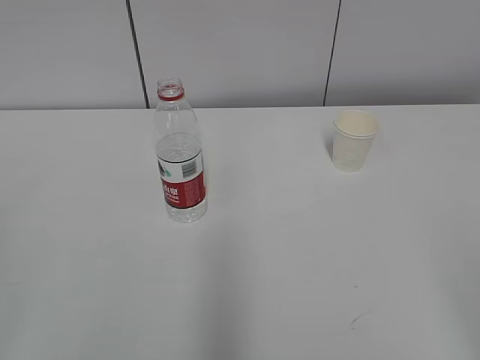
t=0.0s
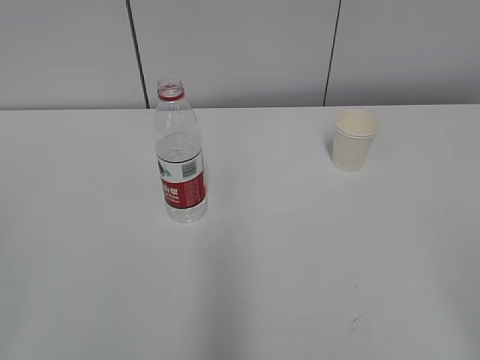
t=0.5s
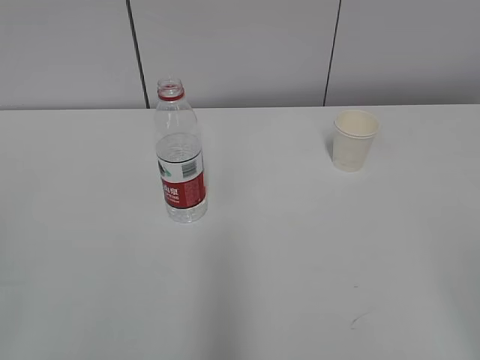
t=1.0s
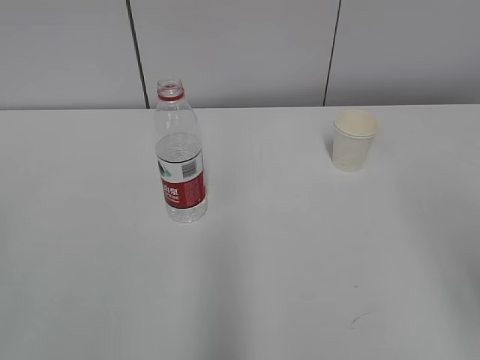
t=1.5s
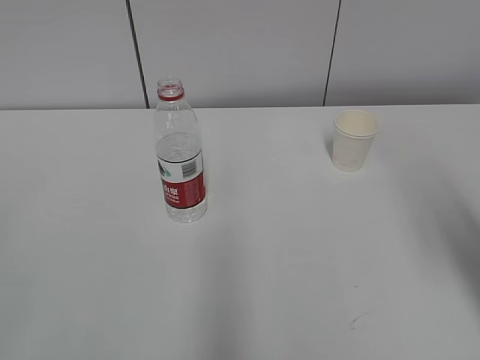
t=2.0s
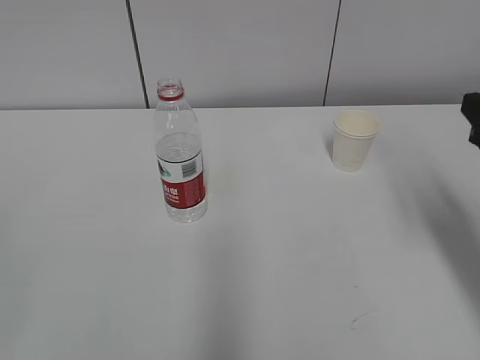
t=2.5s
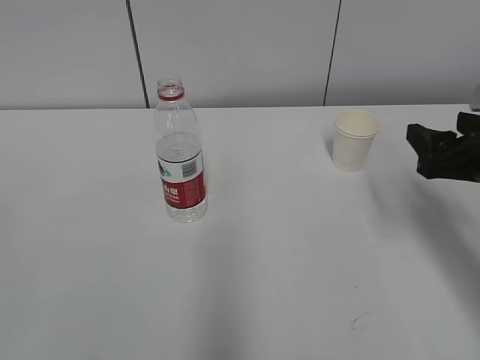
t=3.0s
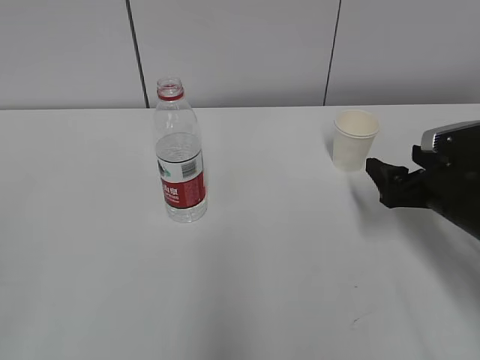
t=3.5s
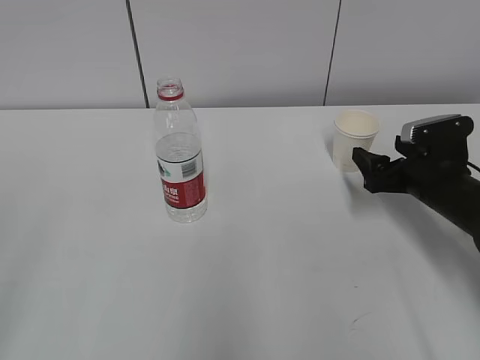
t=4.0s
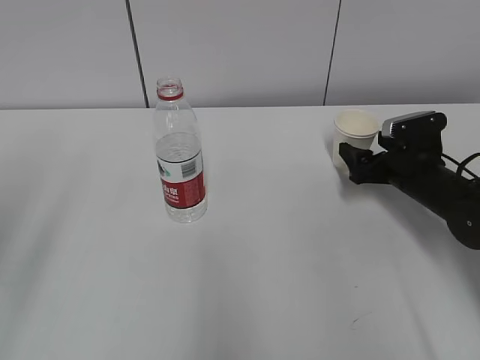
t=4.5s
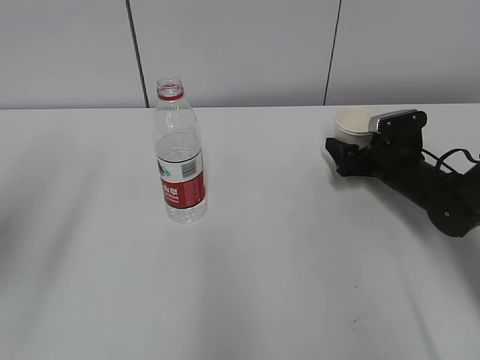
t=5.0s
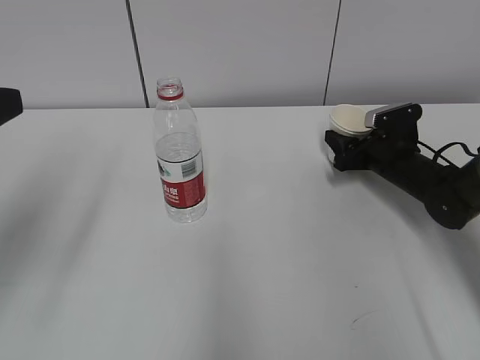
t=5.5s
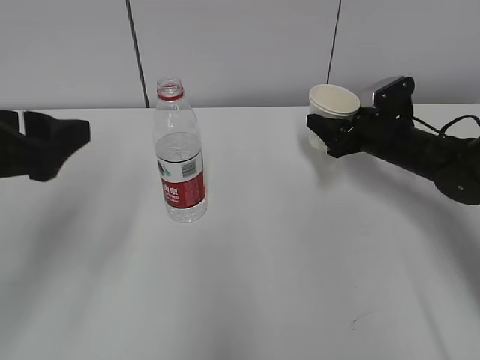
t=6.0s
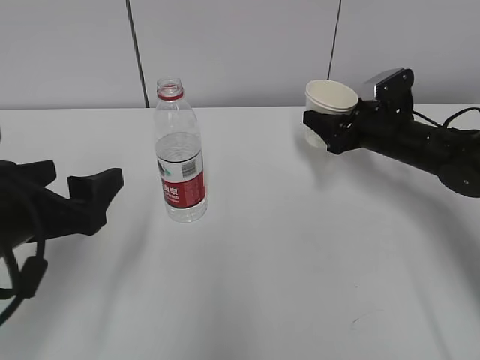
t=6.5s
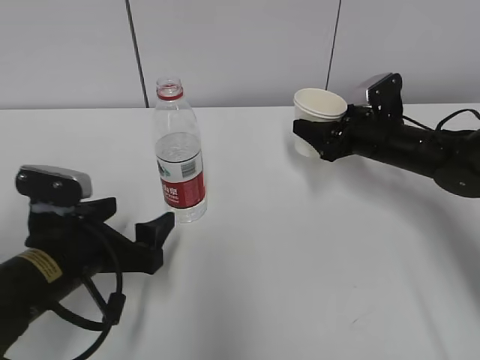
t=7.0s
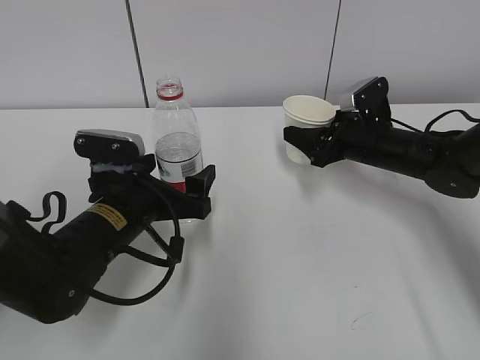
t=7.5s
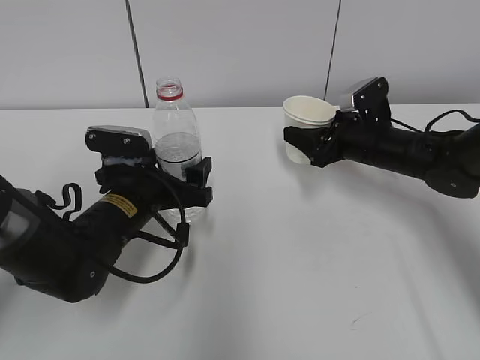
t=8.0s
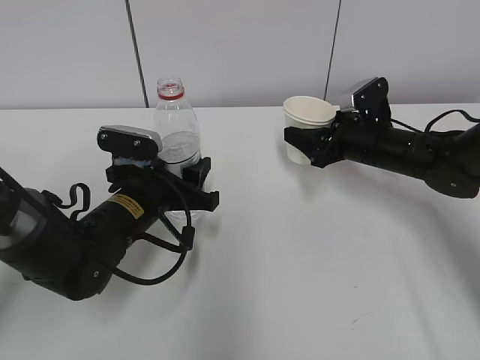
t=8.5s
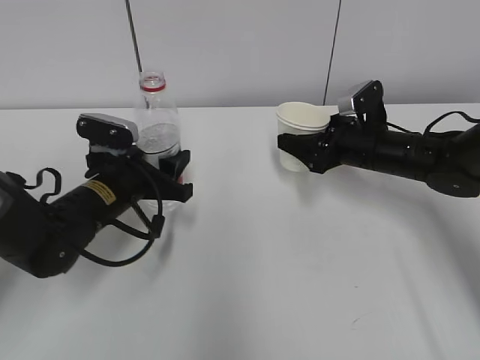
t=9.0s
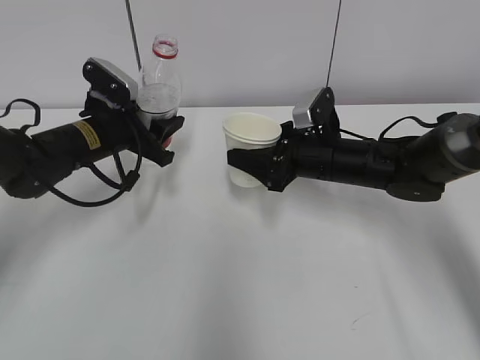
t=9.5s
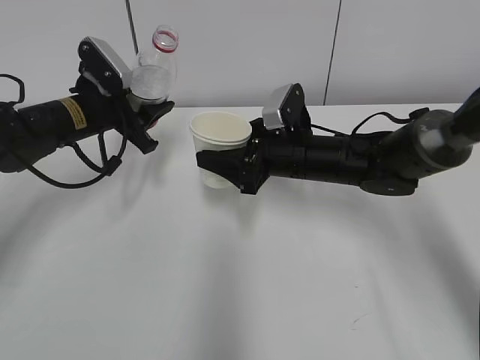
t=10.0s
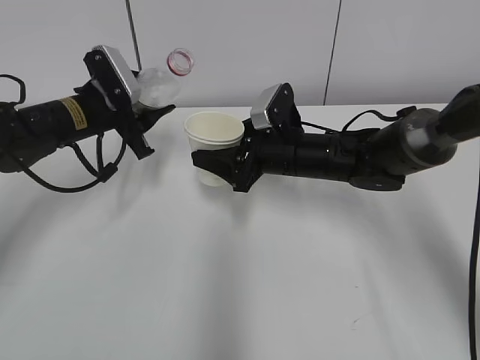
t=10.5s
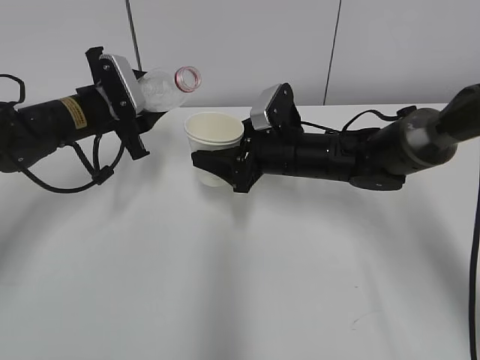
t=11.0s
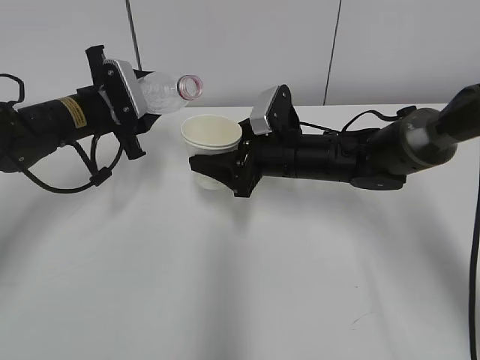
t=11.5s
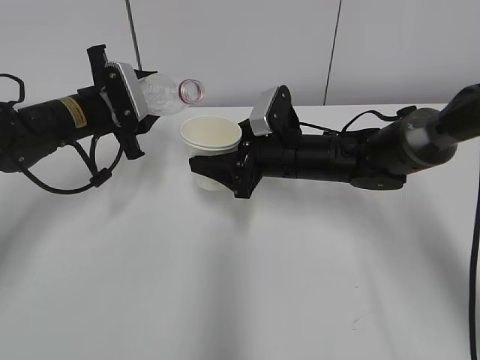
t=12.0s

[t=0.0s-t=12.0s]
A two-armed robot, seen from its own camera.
Step, t=0.0s to t=4.0s: Grab the paper cup with the right hand.
Step, t=4.5s to t=7.0s: Grab the water bottle with the left hand.
t=2.0s to t=4.0s: The right gripper heads downward and forward, covering about 30 cm, and opens.
t=4.0s to t=6.0s: The left gripper moves forward and to the right, about 20 cm; the right gripper travels forward by about 10 cm, and closes up.
t=6.0s to t=8.0s: The left gripper travels downward, forward and to the right by some 25 cm.
t=8.0s to t=10.0s: The left gripper moves forward, to the left and upward, about 15 cm, and closes. Meanwhile the right gripper moves to the left, approximately 10 cm.

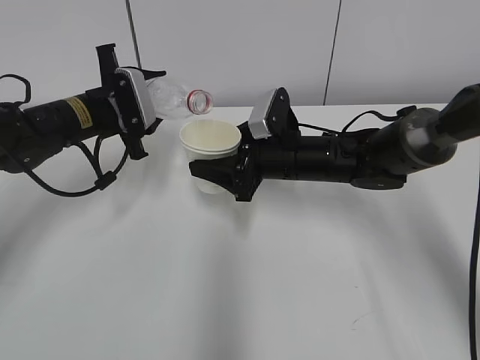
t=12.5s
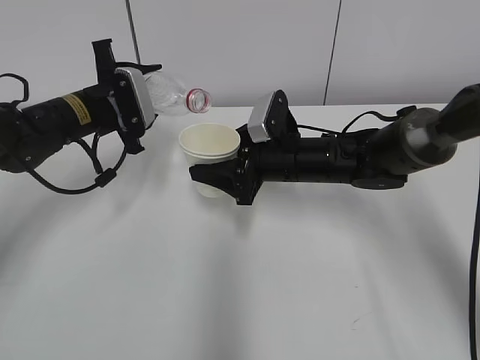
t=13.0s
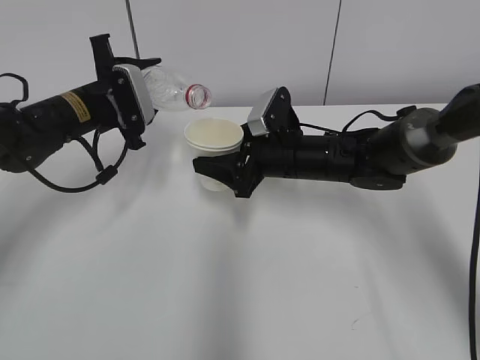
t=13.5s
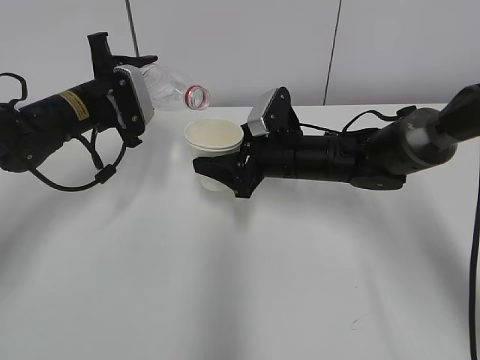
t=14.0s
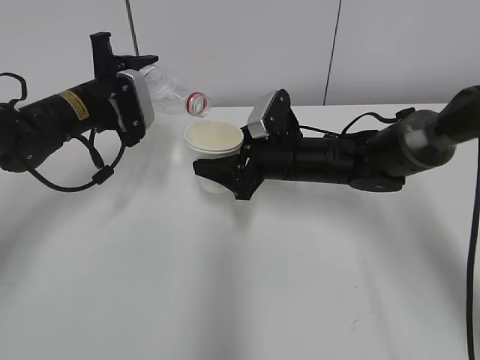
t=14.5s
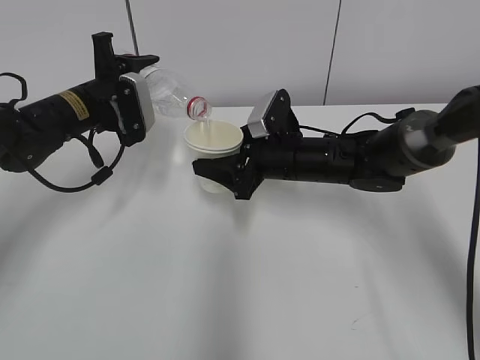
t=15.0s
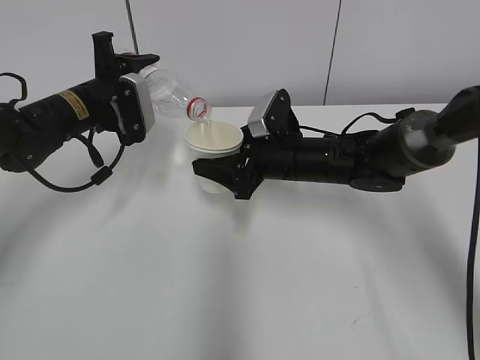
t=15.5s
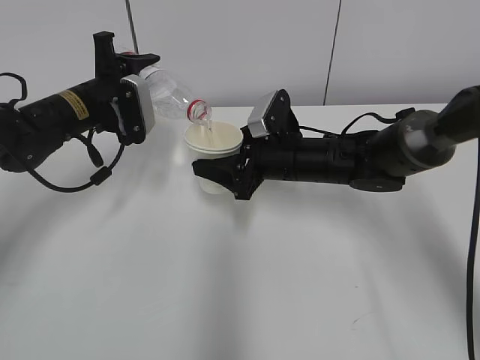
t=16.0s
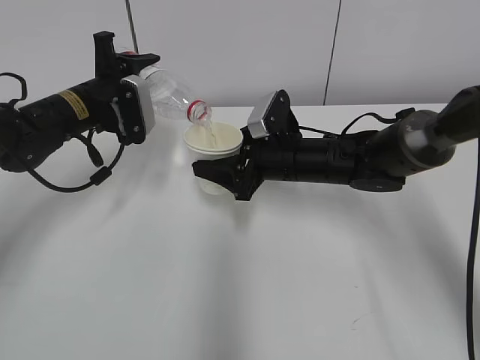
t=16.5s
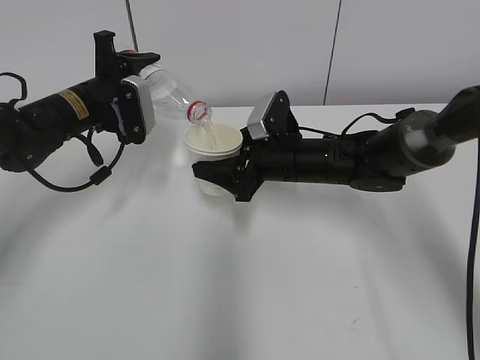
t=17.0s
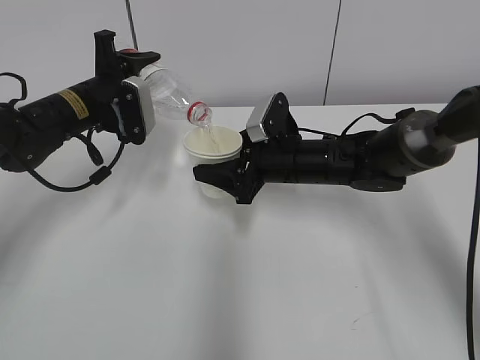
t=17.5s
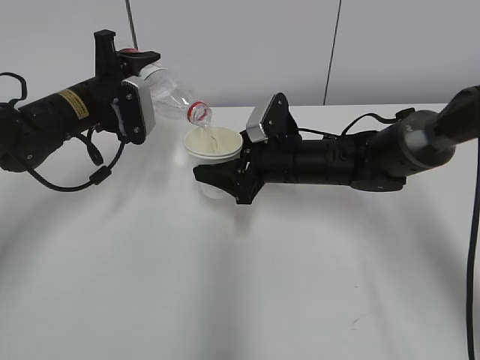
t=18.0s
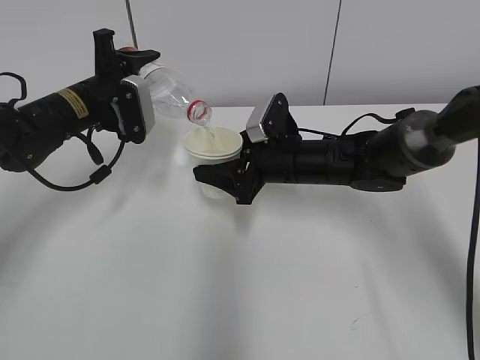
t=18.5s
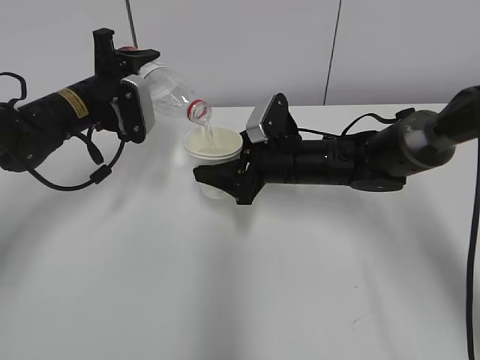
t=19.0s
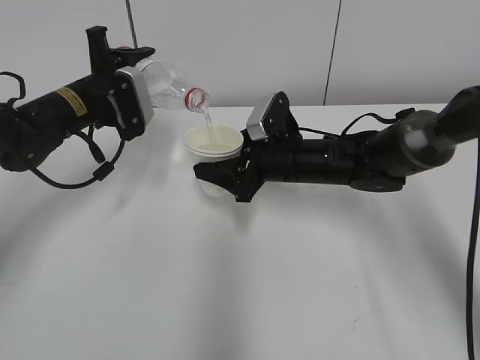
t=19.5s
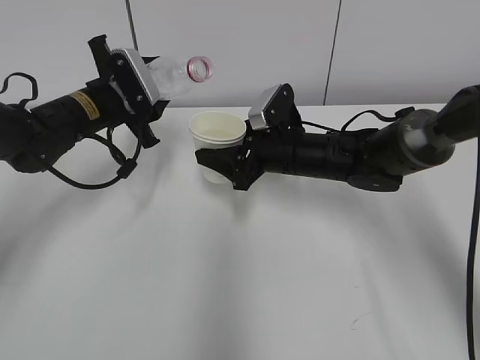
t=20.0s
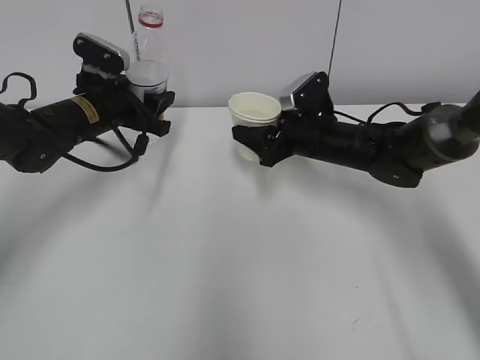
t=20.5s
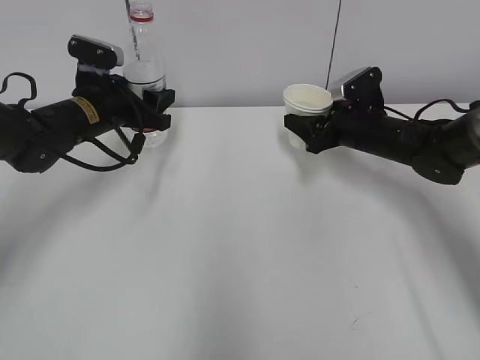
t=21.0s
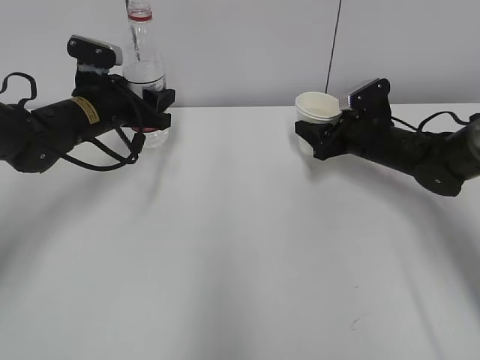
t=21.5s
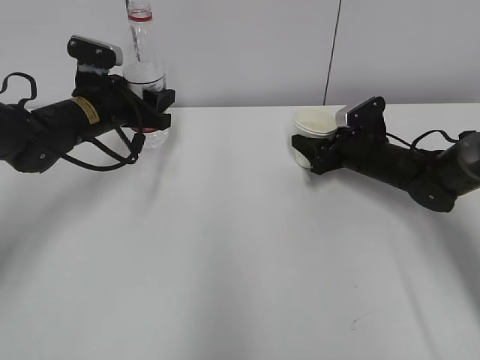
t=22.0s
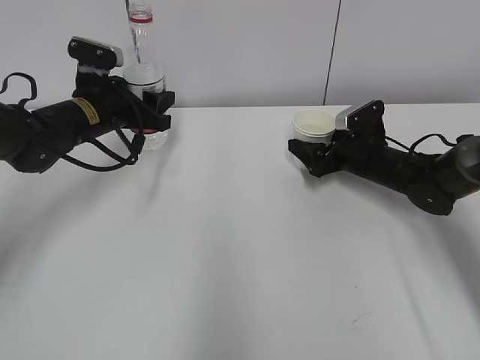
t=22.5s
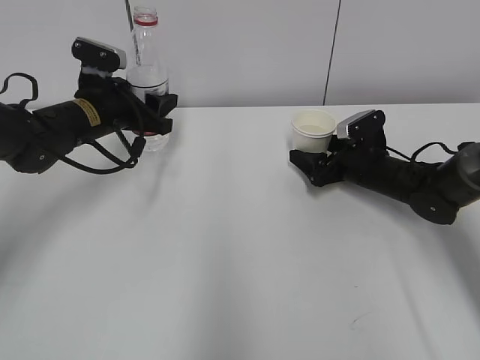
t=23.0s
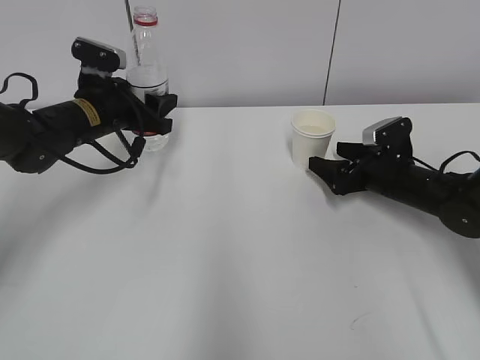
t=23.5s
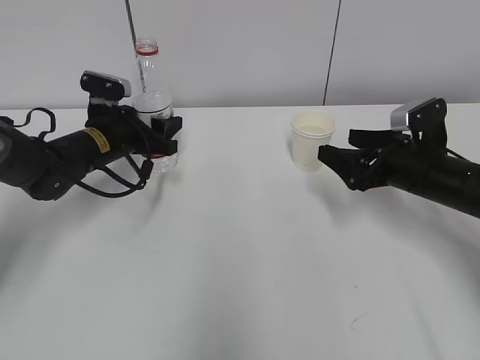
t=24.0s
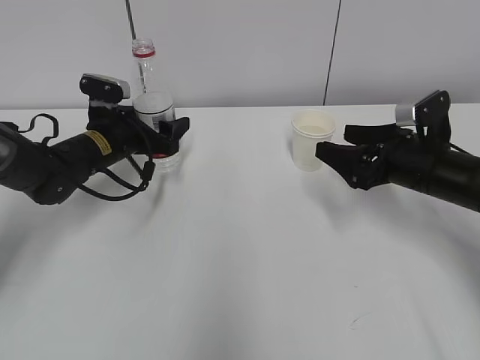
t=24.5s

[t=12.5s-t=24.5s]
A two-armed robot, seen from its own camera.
Step, t=12.5s to t=16.0s: Fill water with the right hand.
Step, t=12.5s to t=16.0s: Pour water with the left hand.
Step, t=16.5s to t=17.5s: Collect water with the left hand.
Step, t=18.5s to t=20.0s: Place the water bottle with the left hand.
t=12.5s to t=16.5s: The grippers make only small movements.
t=16.5s to t=18.5s: Neither gripper changes place.
t=18.5s to t=20.5s: The right gripper moves some 5 cm.
t=20.5s to t=22.5s: The right gripper moves to the right and downward, some 10 cm, and opens.
t=22.5s to t=24.5s: The right gripper goes some 15 cm backward and upward; the left gripper heads downward, covering roughly 5 cm, and opens its fingers.

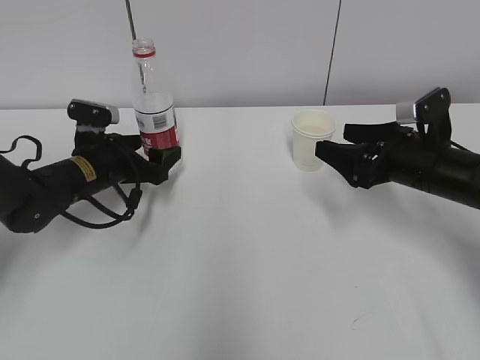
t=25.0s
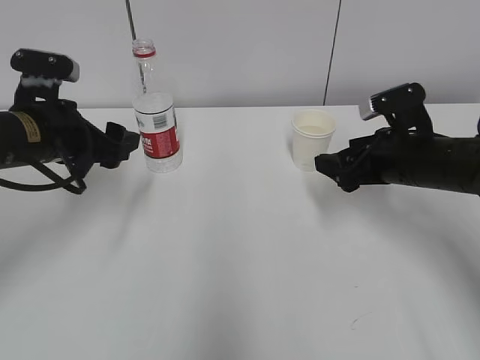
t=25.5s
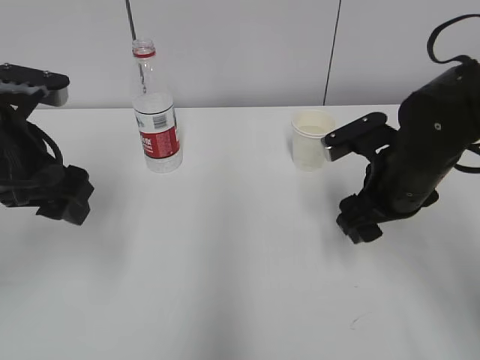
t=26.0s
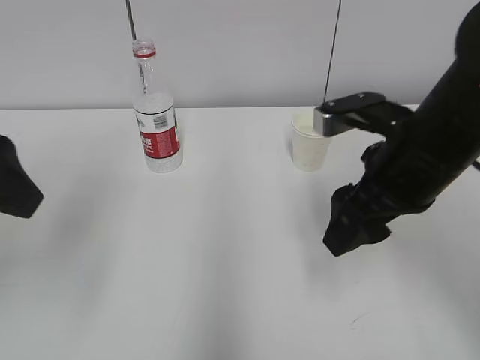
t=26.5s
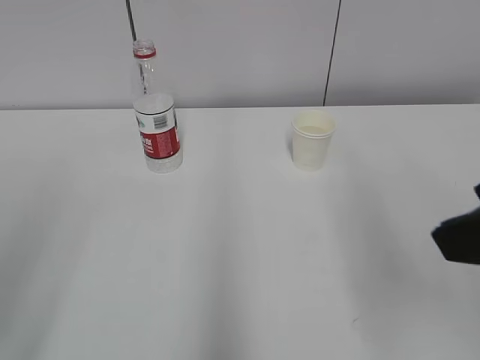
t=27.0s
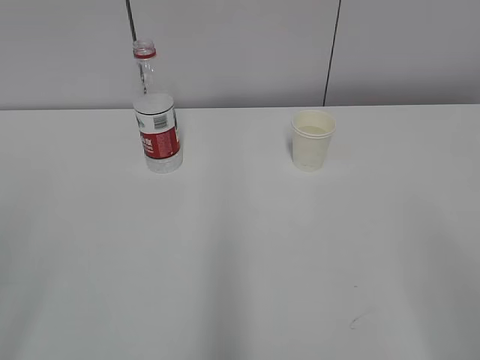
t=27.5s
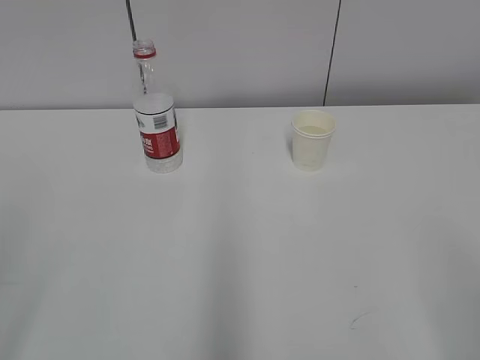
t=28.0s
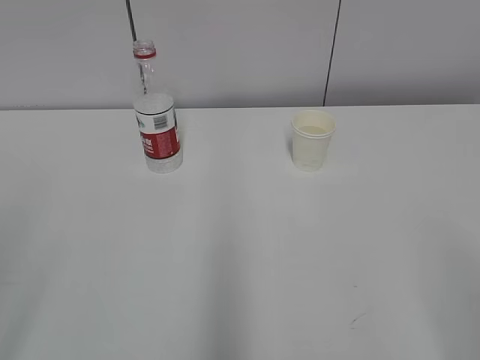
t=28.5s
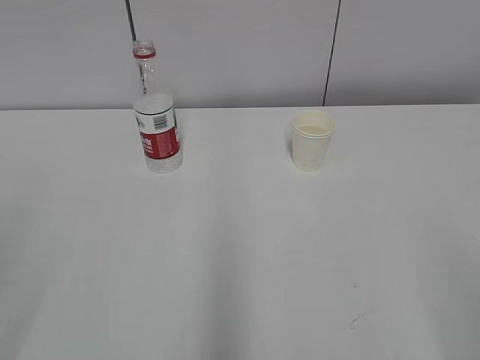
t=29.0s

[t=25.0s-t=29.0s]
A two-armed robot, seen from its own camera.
t=25.0s to t=27.0s: The two grippers go about 35 cm backward and upward.
t=27.0s to t=29.0s: The right gripper goes roughly 15 cm backward, downward and to the right.
